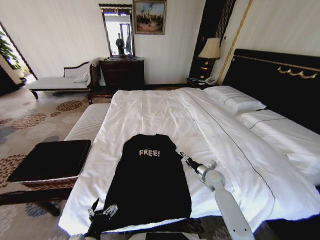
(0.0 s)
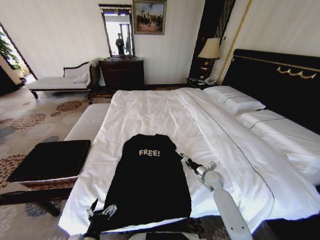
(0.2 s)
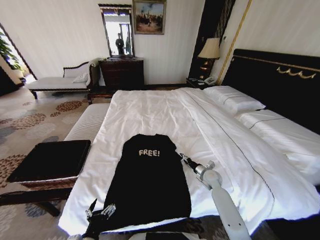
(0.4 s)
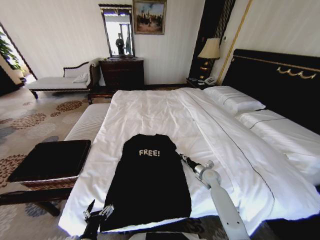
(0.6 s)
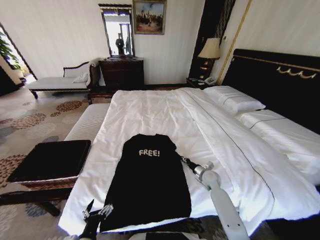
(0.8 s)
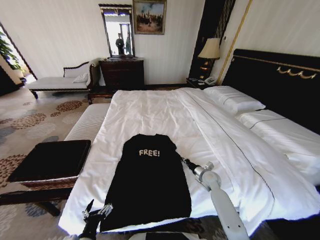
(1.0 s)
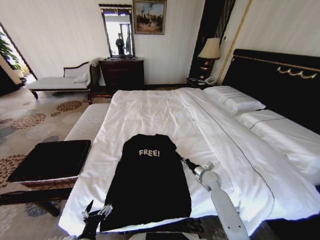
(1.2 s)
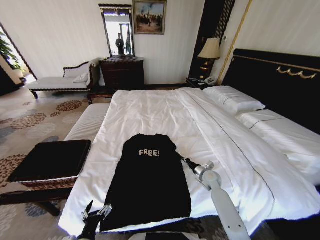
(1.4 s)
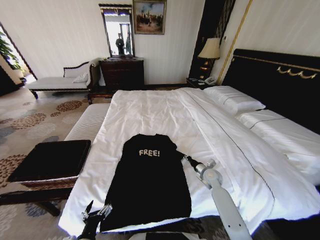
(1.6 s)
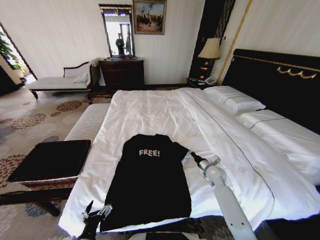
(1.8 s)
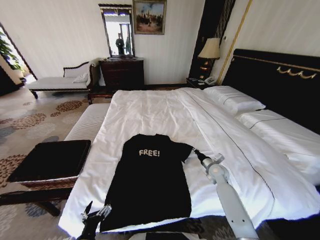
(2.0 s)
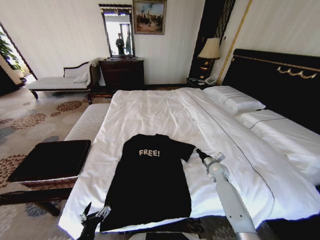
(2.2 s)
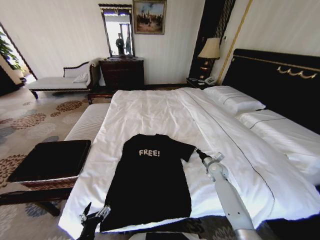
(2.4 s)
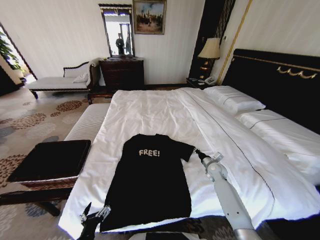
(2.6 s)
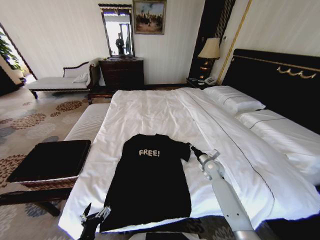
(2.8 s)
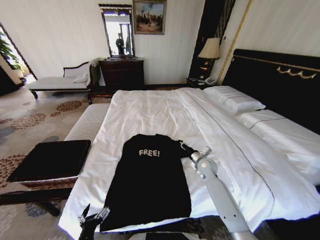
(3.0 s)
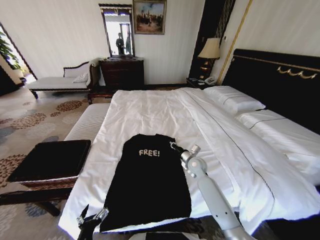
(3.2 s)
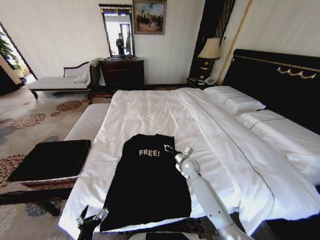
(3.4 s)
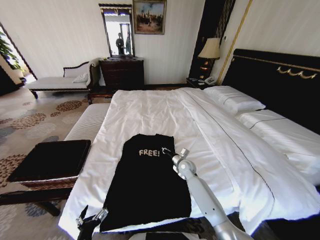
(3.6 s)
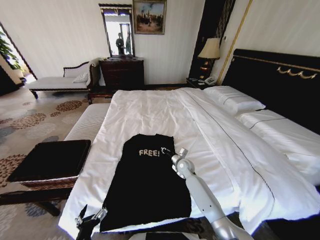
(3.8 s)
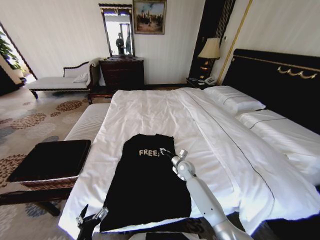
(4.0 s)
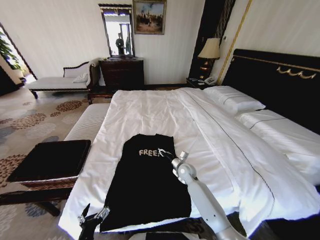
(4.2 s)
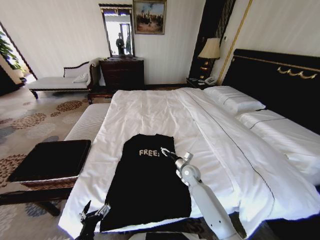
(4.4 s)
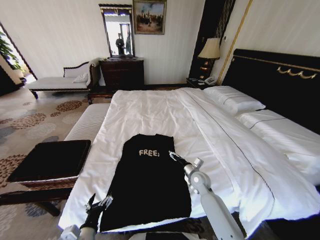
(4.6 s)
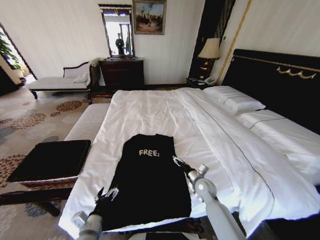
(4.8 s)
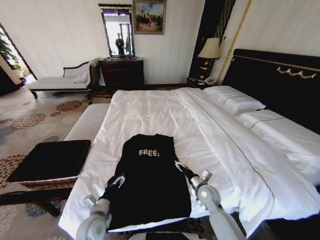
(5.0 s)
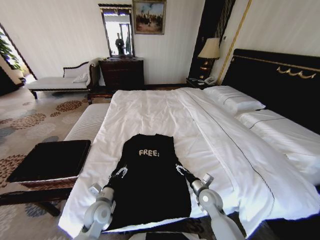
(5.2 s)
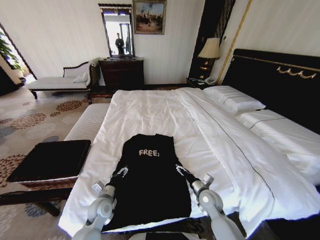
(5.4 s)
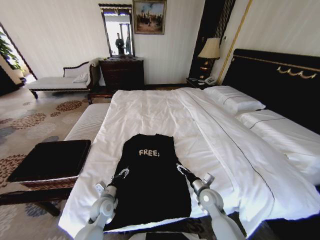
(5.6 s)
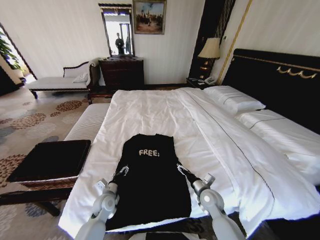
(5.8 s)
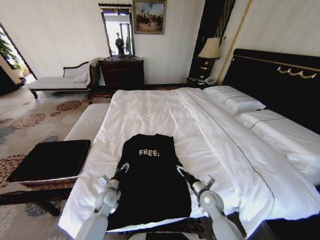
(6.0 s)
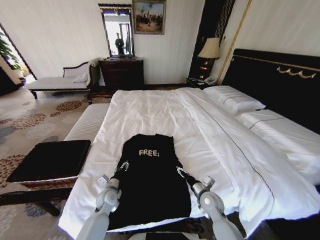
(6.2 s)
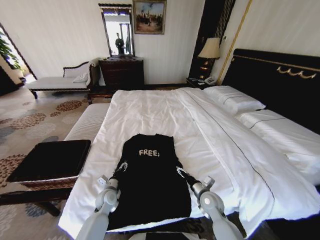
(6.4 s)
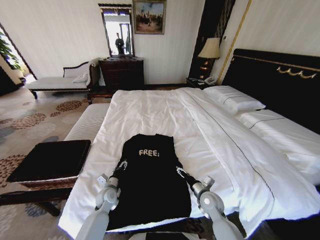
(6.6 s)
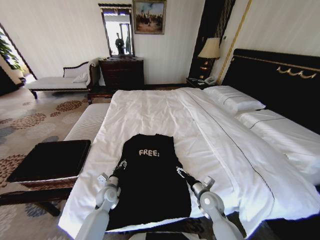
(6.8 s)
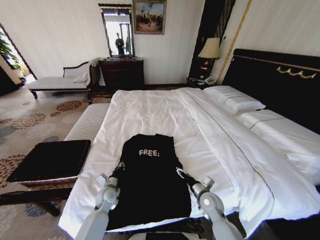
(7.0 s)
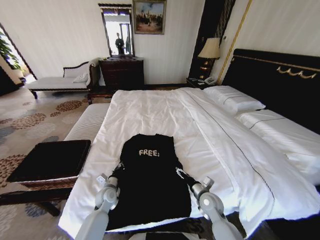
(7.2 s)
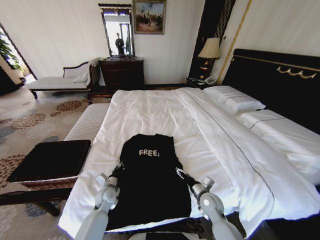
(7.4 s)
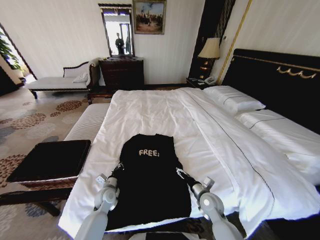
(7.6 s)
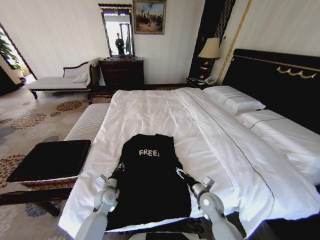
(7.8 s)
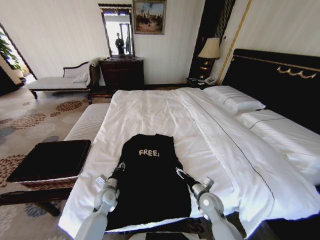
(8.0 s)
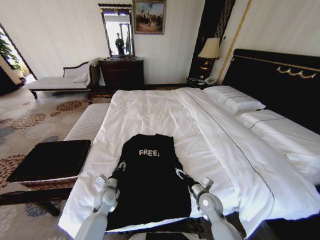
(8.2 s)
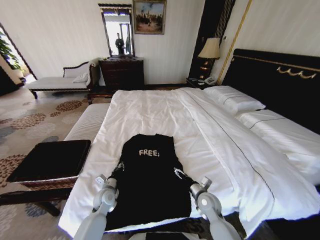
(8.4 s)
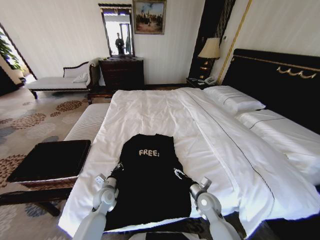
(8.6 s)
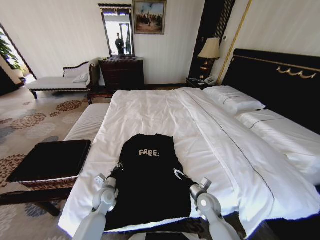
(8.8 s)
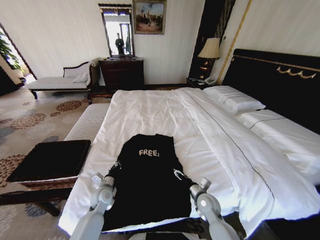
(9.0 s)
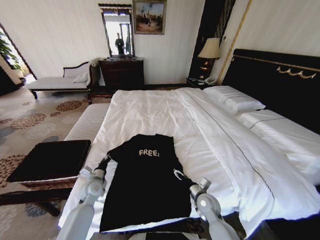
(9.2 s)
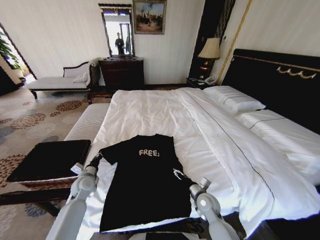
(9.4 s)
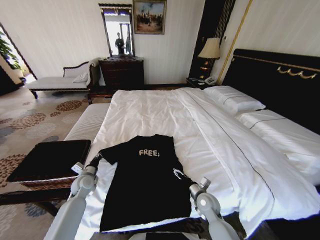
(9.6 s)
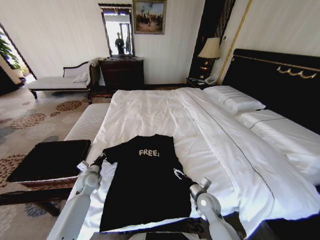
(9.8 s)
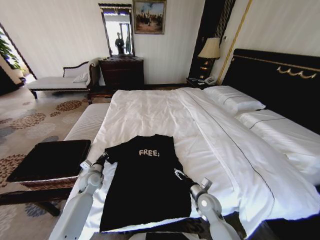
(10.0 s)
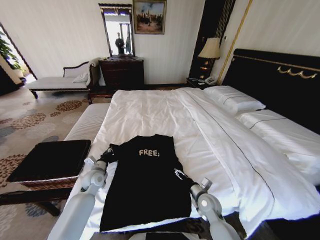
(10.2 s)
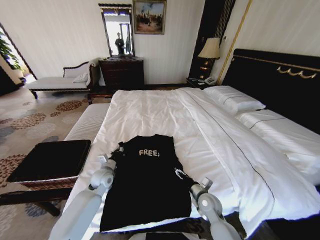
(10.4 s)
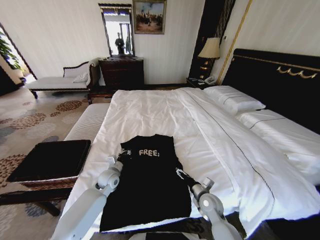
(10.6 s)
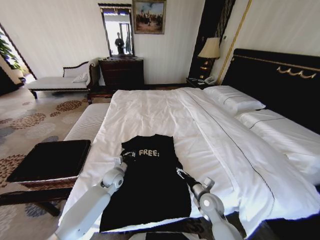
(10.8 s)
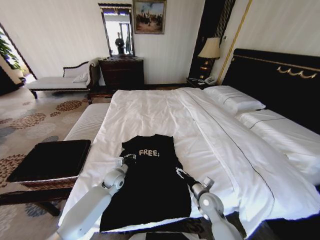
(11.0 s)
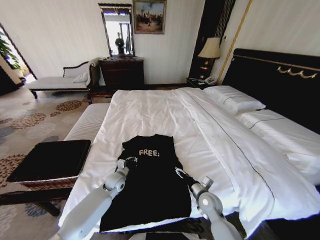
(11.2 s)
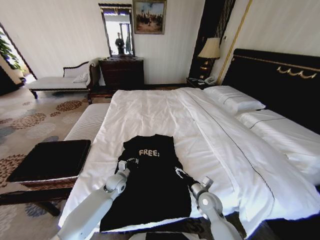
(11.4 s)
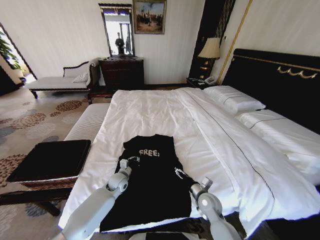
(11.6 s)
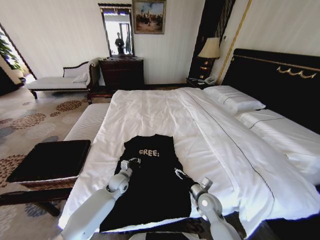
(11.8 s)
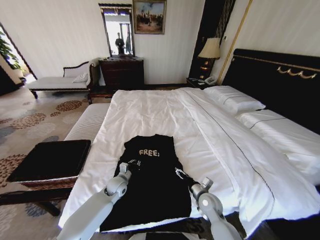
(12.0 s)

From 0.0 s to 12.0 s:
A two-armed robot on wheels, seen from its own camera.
Task of the whole recording: Fold the clothes on the bed and place them into the basket.
From 0.0 s to 1.6 s: The right gripper closes its fingers.
From 1.6 s to 3.0 s: The right gripper travels upward by some 5 cm.
From 3.0 s to 4.4 s: The right gripper heads to the left, covering roughly 10 cm, and opens up.
From 4.4 s to 6.0 s: The left gripper is displaced forward by roughly 25 cm, while the right gripper travels backward and to the right by roughly 15 cm, and opens.
From 6.0 s to 7.6 s: The left gripper closes up.
From 7.6 s to 9.0 s: The left gripper opens and closes again.
From 9.0 s to 10.4 s: The left gripper heads upward and forward, covering some 10 cm, and goes to the left and returns, roughly 10 cm each way.
From 10.4 s to 12.0 s: The left gripper heads downward and to the right, covering about 10 cm.

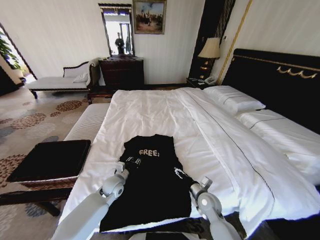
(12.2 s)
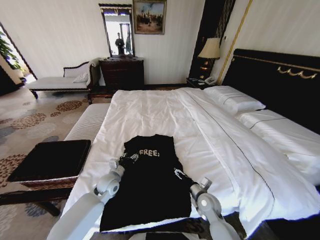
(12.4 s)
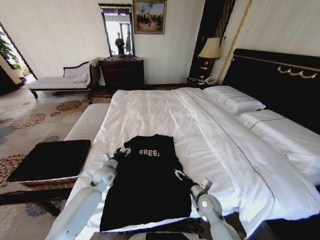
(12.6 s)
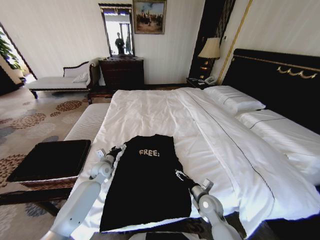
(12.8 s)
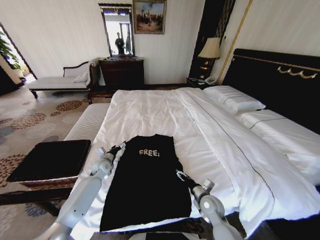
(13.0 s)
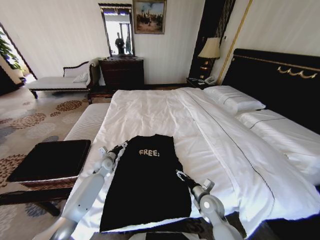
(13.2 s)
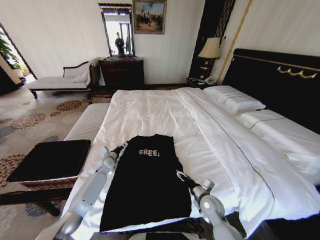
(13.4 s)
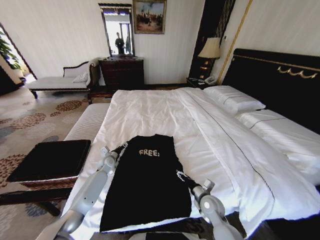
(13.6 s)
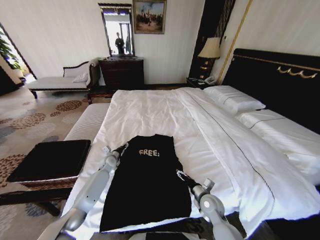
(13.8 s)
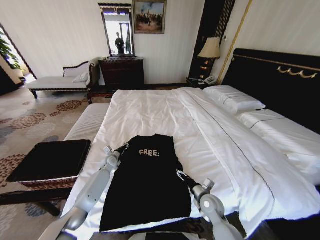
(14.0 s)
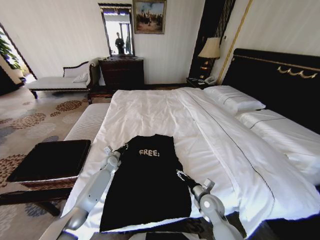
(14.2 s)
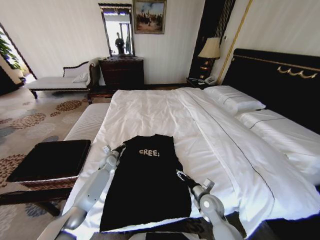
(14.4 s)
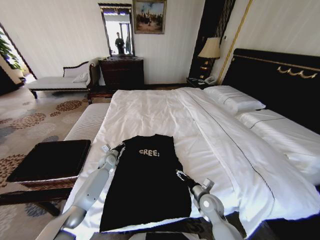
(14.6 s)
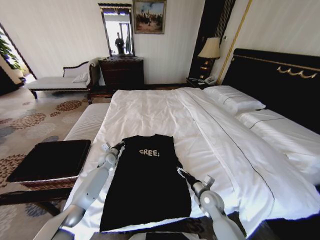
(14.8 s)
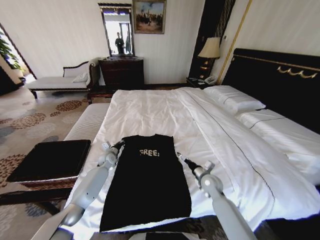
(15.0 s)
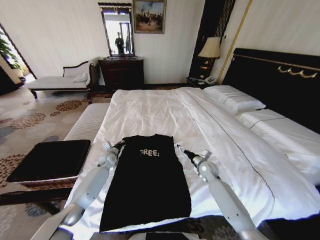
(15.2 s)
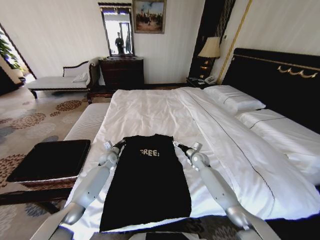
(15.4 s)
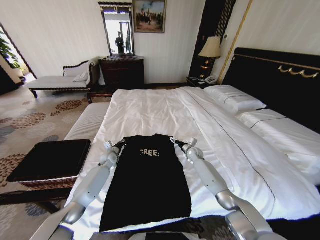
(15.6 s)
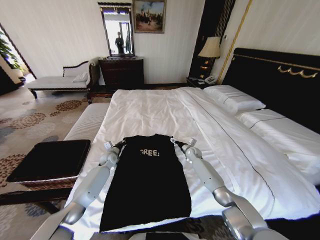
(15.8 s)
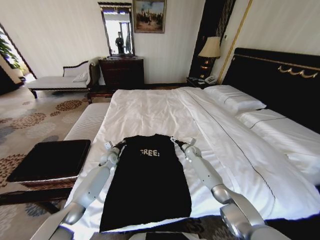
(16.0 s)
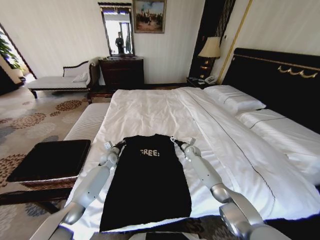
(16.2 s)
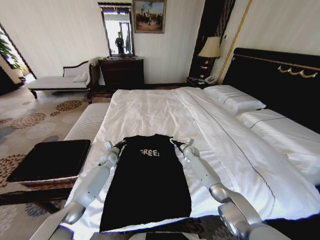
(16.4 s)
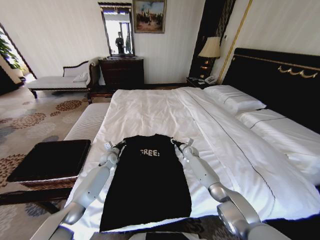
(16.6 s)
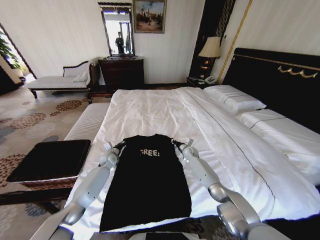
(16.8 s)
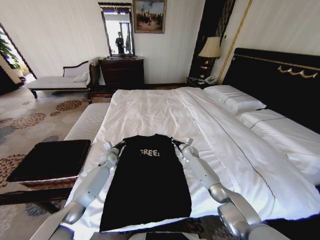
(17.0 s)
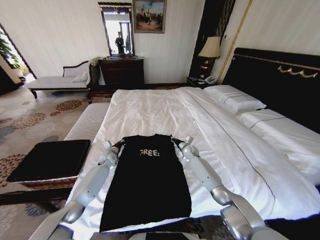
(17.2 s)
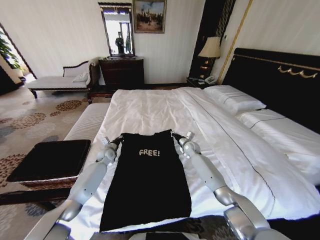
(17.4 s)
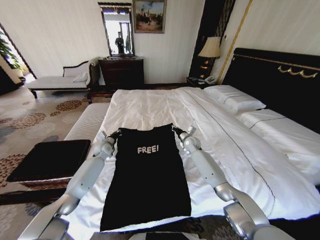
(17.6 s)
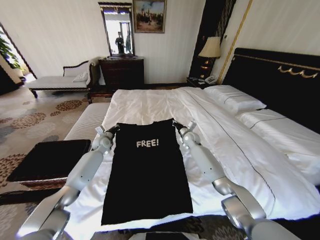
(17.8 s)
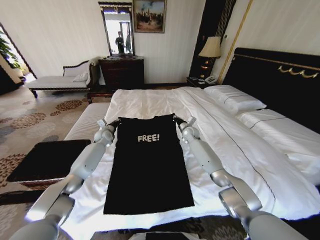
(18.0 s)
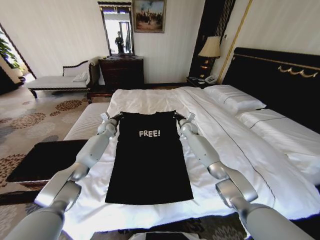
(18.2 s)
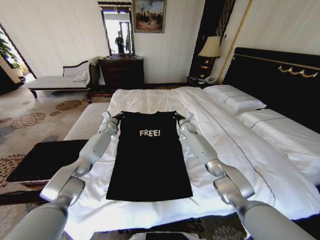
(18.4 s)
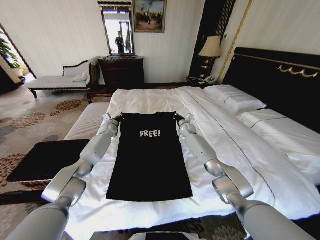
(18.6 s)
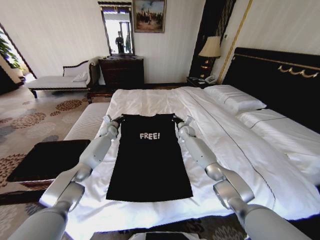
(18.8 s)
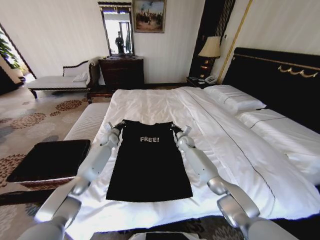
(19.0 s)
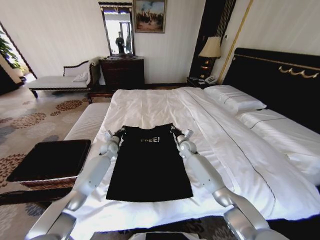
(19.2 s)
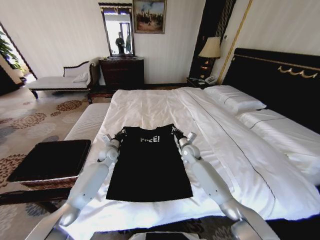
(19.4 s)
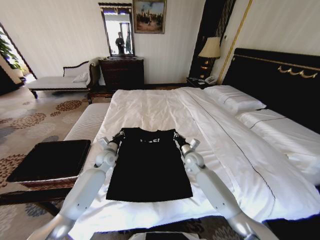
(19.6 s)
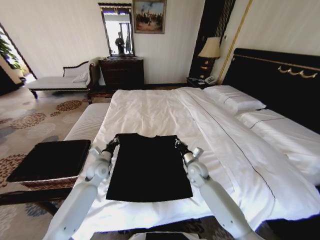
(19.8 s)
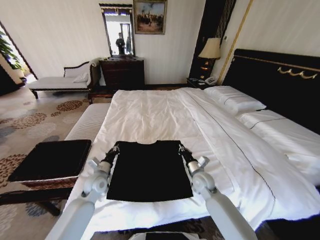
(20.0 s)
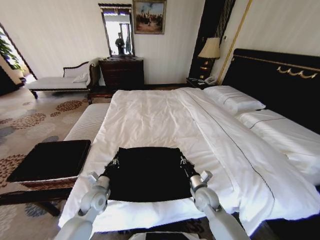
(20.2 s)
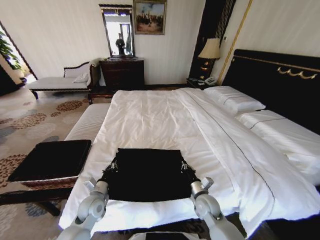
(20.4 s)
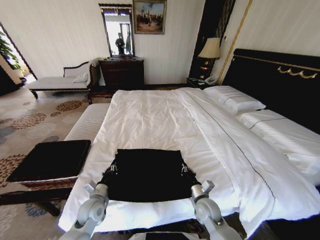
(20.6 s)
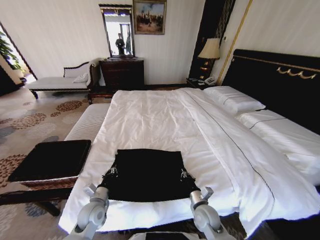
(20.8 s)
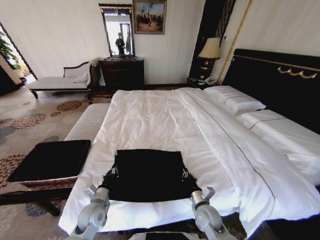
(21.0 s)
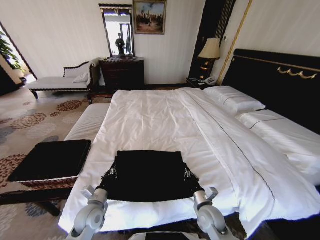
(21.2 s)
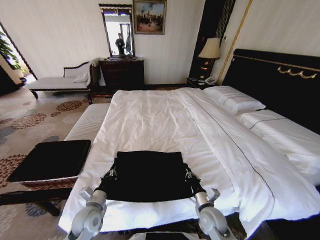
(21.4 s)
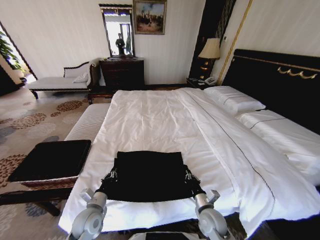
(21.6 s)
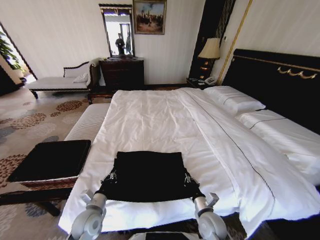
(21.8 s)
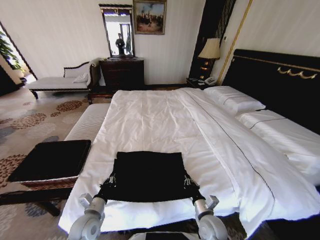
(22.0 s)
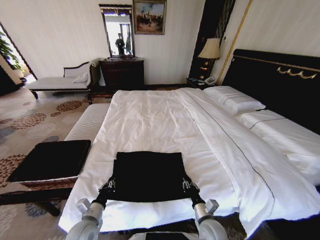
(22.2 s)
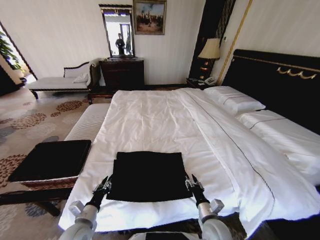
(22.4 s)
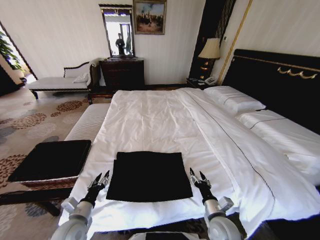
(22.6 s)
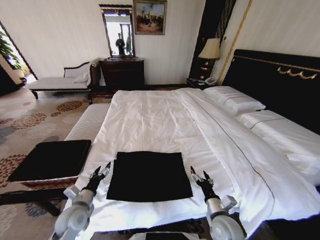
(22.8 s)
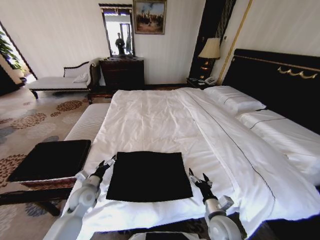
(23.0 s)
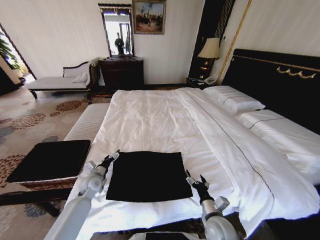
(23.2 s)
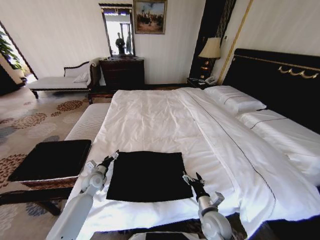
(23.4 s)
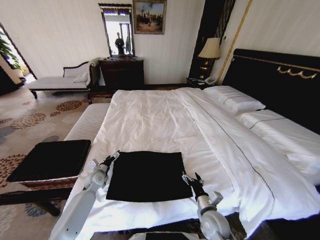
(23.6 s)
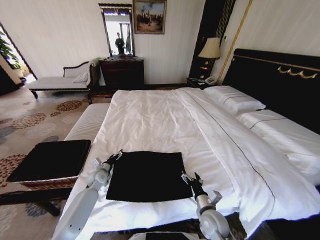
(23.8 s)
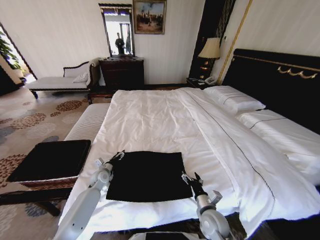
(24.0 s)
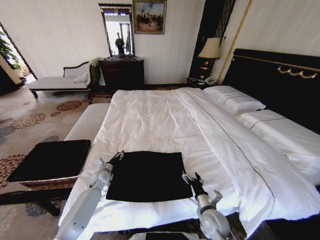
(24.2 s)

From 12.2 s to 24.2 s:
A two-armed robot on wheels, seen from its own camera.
Task of the whole recording: Fold the clothes on the bed and place them into the basket.
From 12.2 s to 13.8 s: The left gripper travels forward and to the left by approximately 15 cm, and opens and closes again.
From 13.8 s to 15.2 s: The left gripper closes; the right gripper travels forward by approximately 15 cm.
From 15.2 s to 16.6 s: The right gripper heads forward, covering approximately 15 cm, and closes up.
From 16.6 s to 18.2 s: Both grippers travel together upward and forward, approximately 15 cm. The right gripper closes up.
From 18.2 s to 19.8 s: The grippers both shift backward by approximately 25 cm.
From 19.8 s to 21.2 s: The grippers both shift backward by some 20 cm.
From 21.2 s to 22.6 s: The right gripper moves approximately 5 cm, and opens up; the left gripper moves backward, about 5 cm, and opens.
From 22.6 s to 24.2 s: The left gripper travels forward by some 25 cm, and opens, then closes once more.
